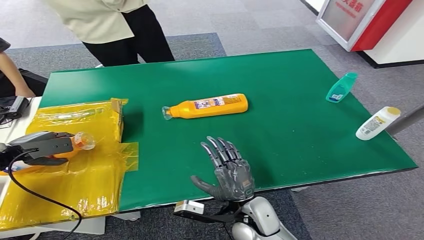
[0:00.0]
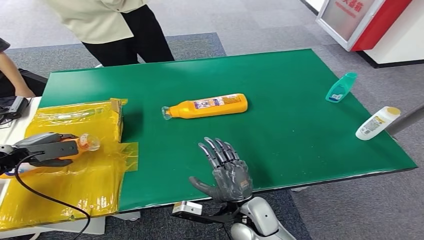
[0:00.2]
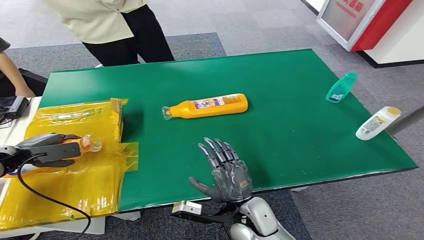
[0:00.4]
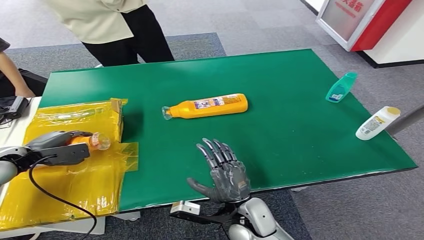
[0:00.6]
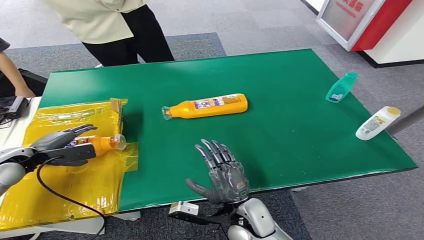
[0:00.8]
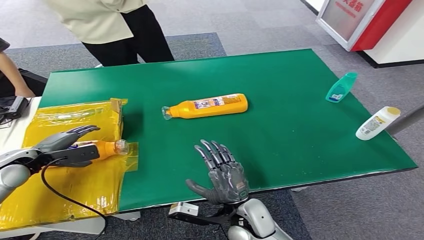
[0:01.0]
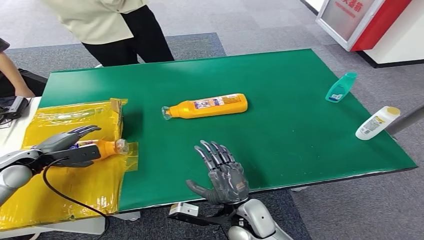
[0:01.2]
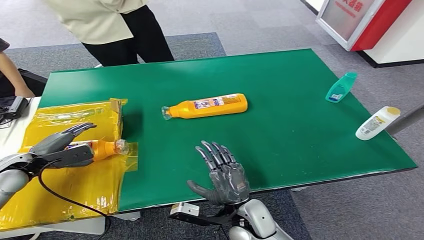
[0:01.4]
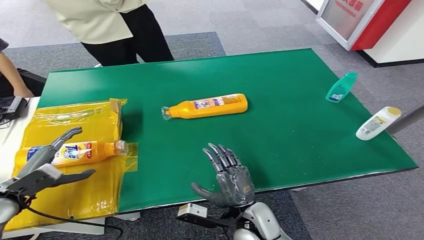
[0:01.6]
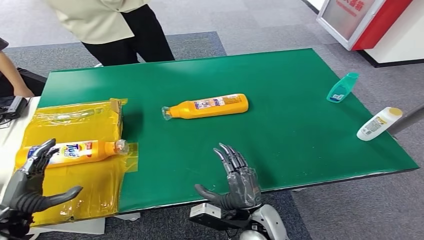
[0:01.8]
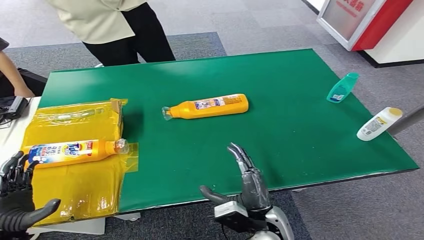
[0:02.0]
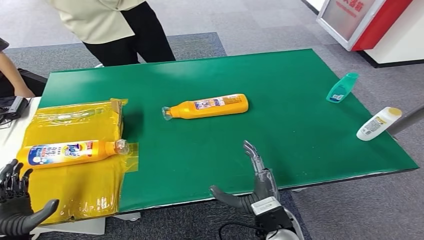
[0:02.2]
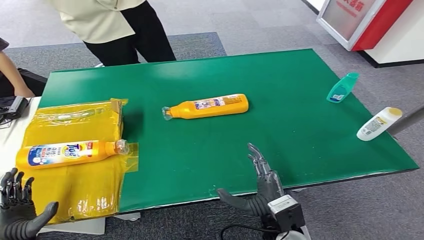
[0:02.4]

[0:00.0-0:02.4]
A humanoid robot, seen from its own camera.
Step, 0:00.0 to 0:02.4: Turn the bottle to the front side.
0:00.0 to 0:01.2: The left hand moves some 5 cm.
0:01.2 to 0:02.4: The left hand shifts approximately 25 cm backward and downward; the right hand goes approximately 5 cm to the right.

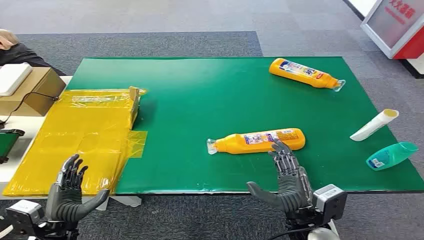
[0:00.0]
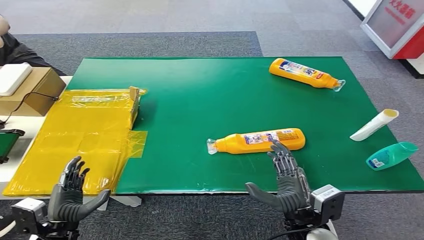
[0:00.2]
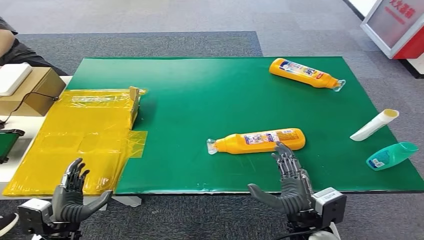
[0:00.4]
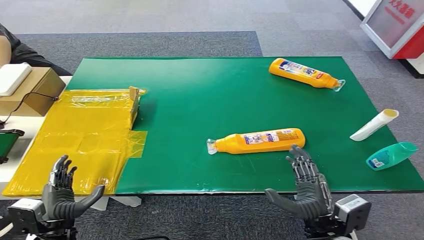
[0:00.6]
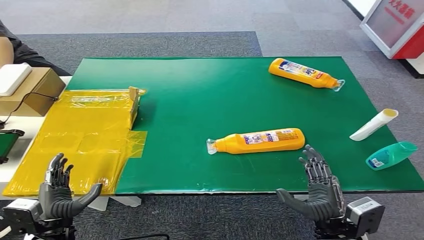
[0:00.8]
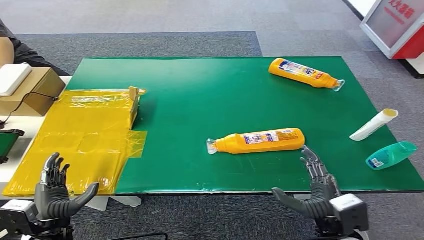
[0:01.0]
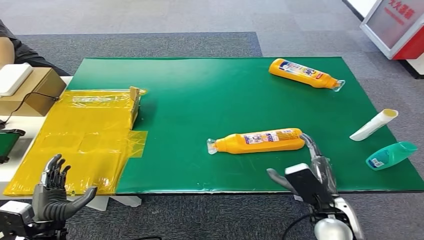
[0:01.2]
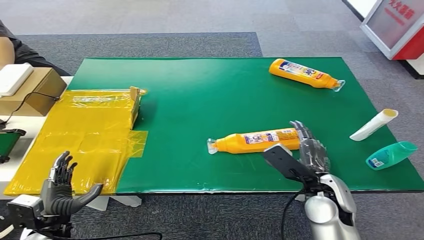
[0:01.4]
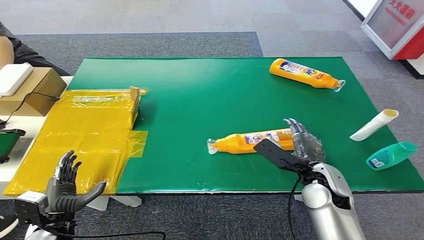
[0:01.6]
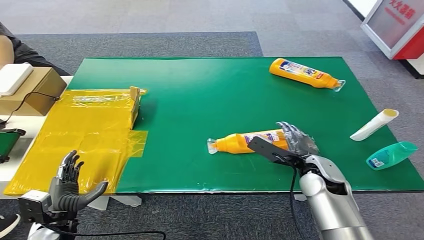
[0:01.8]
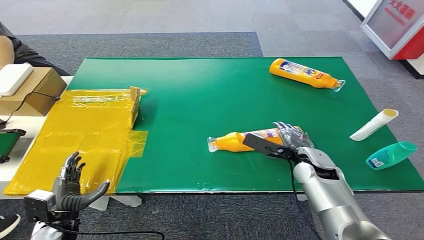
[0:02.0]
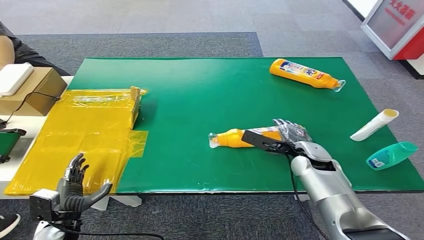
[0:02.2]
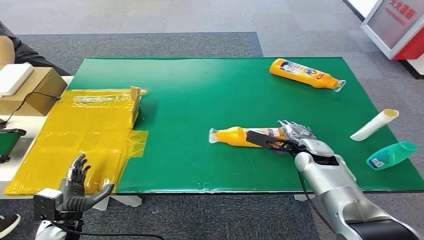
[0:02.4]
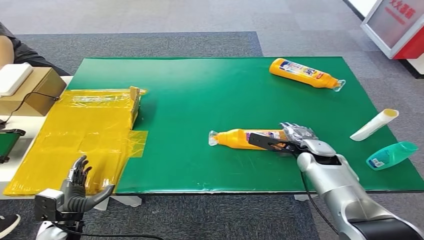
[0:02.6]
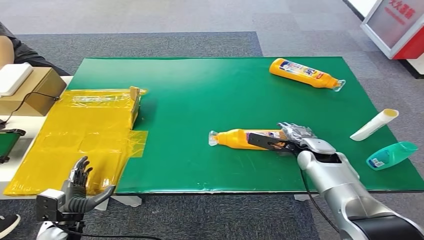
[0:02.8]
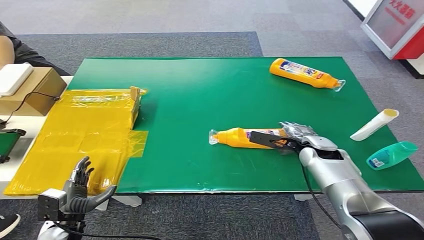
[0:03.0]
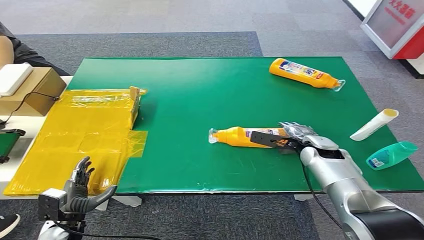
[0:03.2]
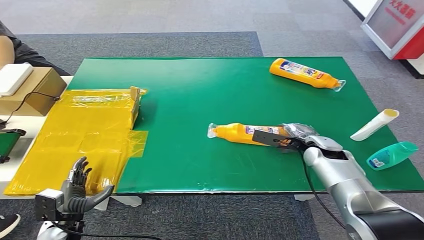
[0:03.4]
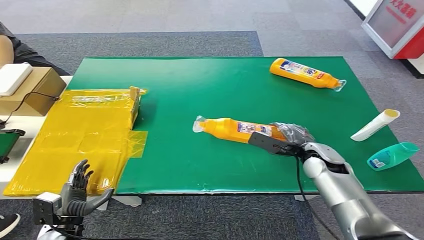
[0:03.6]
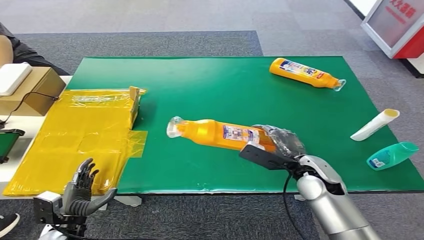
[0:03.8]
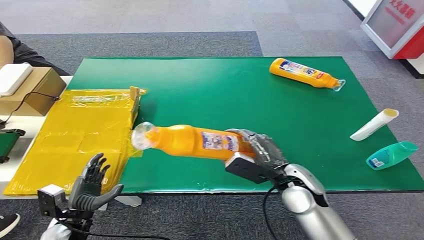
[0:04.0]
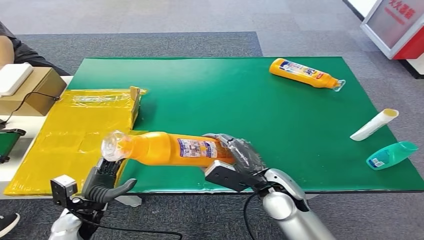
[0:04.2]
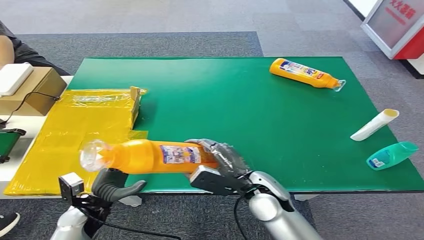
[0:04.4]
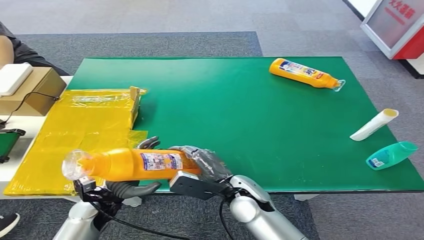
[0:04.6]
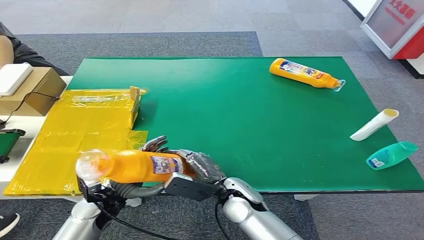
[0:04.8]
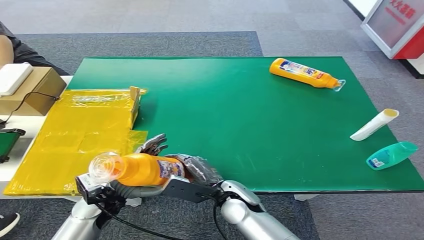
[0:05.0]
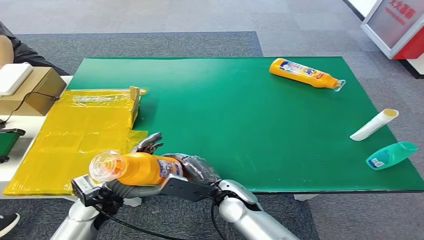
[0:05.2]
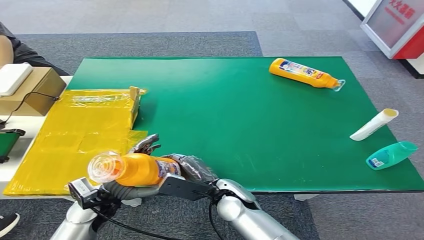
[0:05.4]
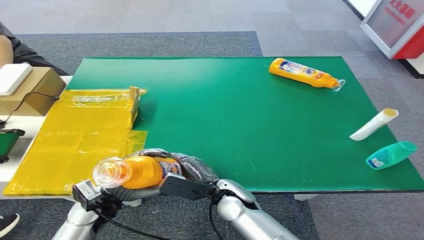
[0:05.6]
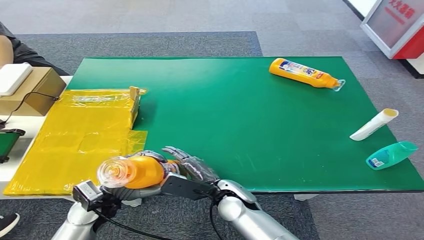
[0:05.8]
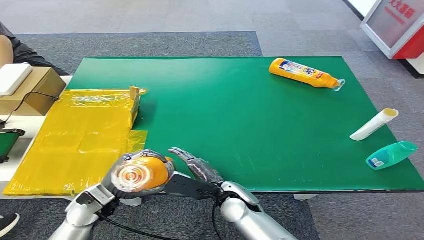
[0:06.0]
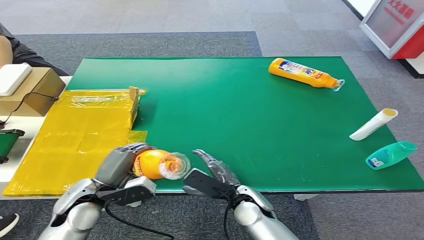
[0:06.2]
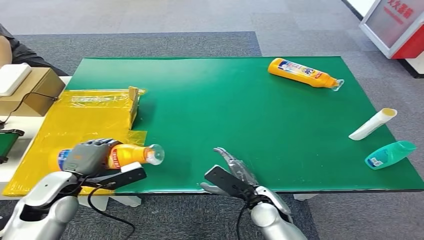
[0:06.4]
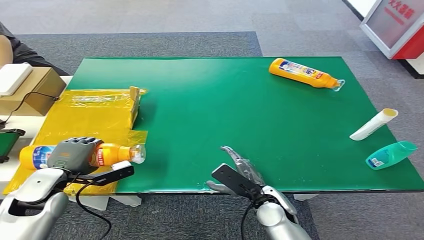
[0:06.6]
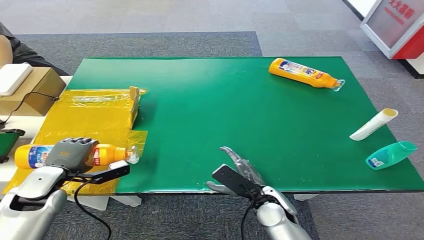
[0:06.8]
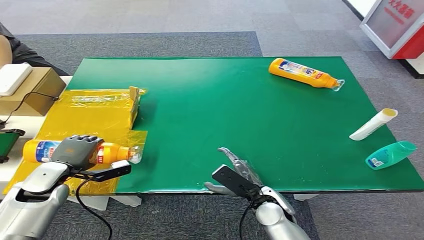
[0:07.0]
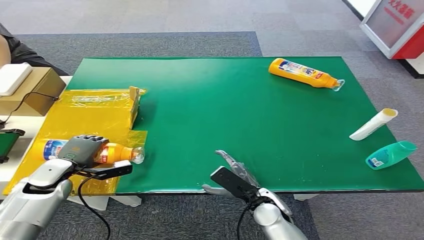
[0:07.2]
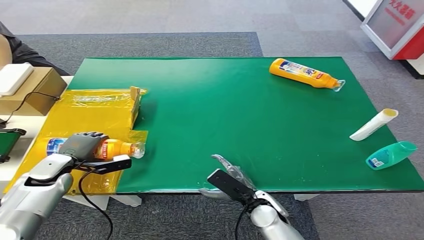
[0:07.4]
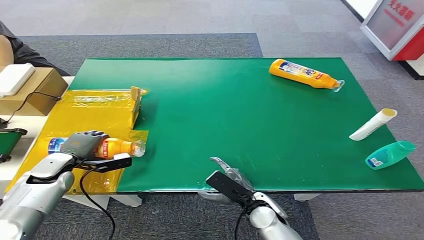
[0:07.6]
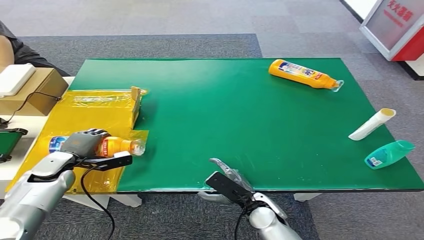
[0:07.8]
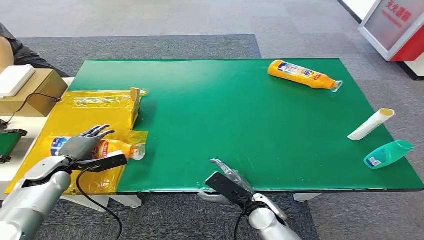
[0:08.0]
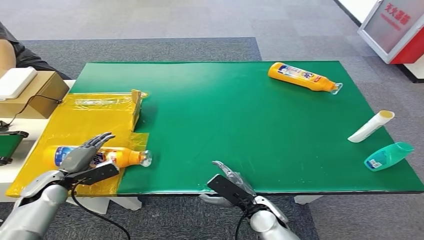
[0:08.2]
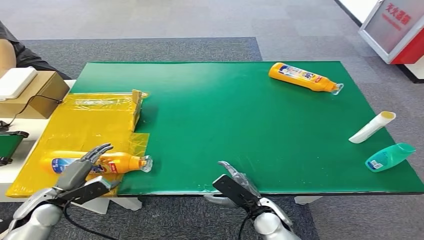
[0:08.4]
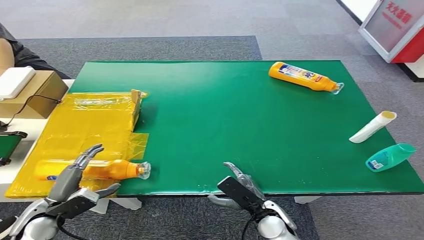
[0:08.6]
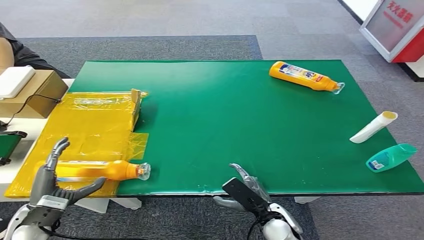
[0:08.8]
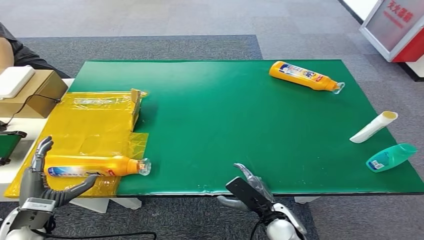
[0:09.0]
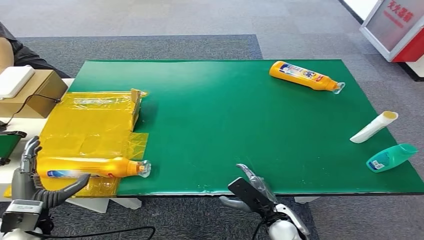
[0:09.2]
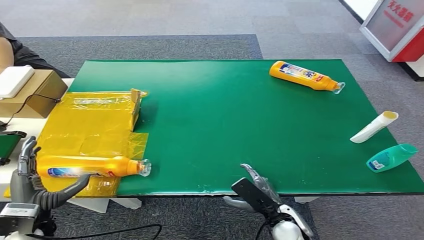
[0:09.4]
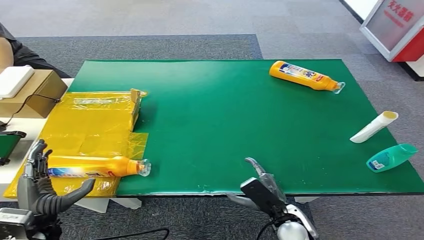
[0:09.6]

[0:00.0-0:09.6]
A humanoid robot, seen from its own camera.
Step, 0:00.0 to 0:03.6: Pick up the bottle from the table.
Step, 0:04.0 to 0:09.6: Turn the bottle to the front side.
0:01.6 to 0:03.2: The right hand moves forward, approximately 10 cm.
0:03.2 to 0:04.8: The right hand shifts approximately 25 cm to the left and backward; the left hand goes approximately 15 cm to the right, upward and forward.
0:04.8 to 0:06.4: The left hand shifts roughly 10 cm to the left and upward; the right hand moves to the right, roughly 5 cm.
0:06.4 to 0:08.0: The left hand is displaced forward, downward and to the left by approximately 15 cm.
0:08.0 to 0:09.6: The right hand travels to the right by about 5 cm. The left hand heads backward, covering some 15 cm.
